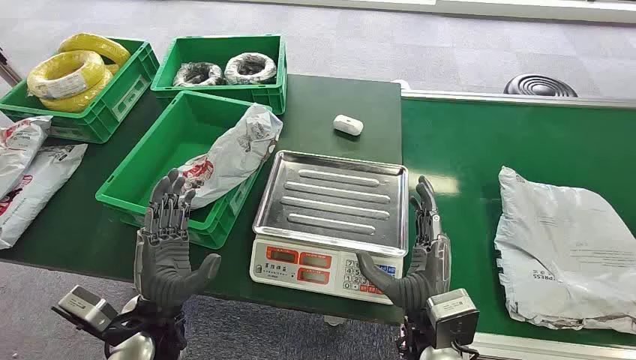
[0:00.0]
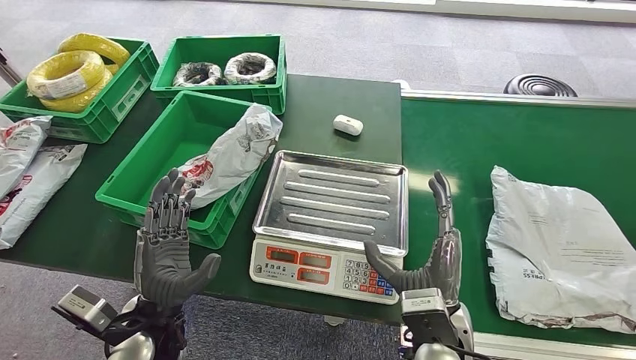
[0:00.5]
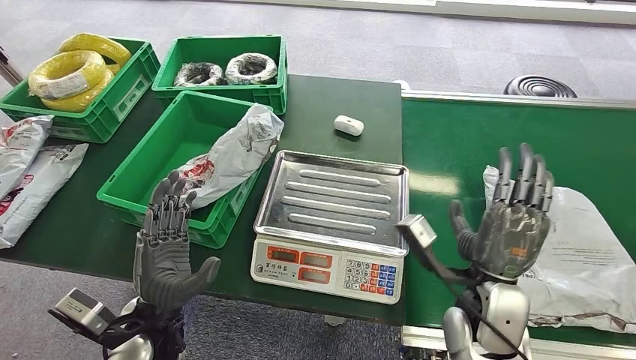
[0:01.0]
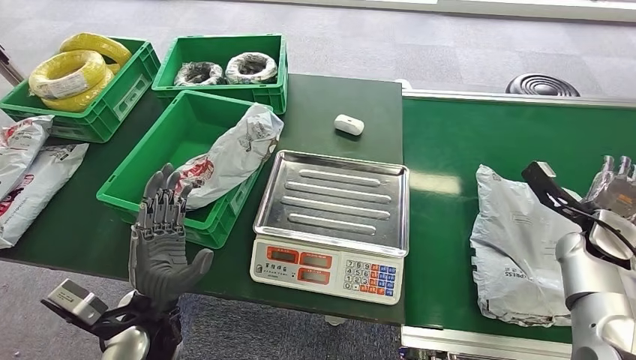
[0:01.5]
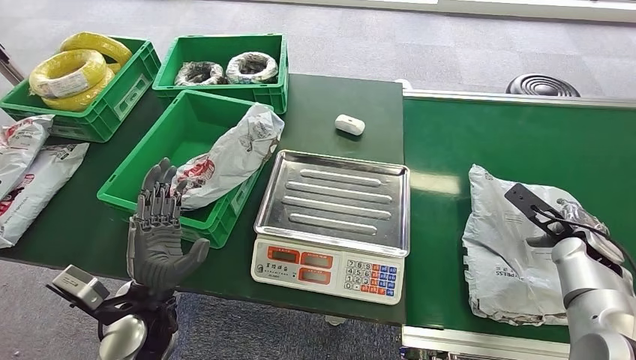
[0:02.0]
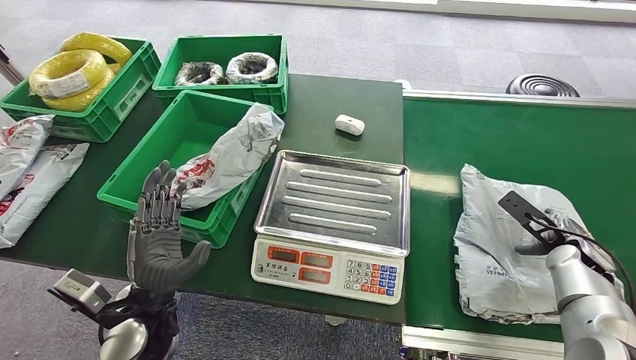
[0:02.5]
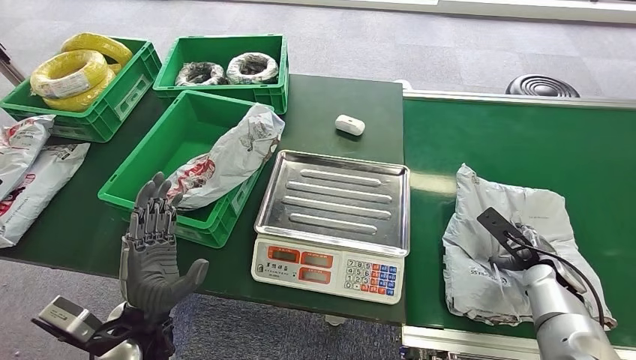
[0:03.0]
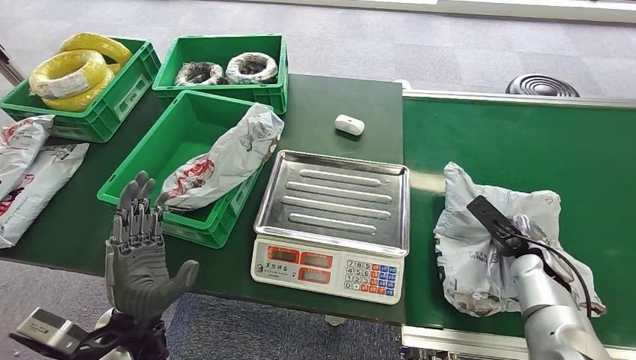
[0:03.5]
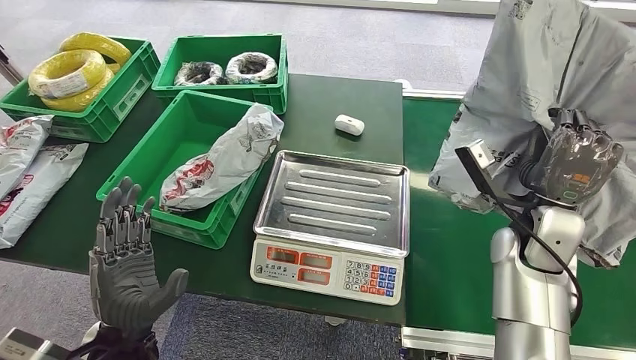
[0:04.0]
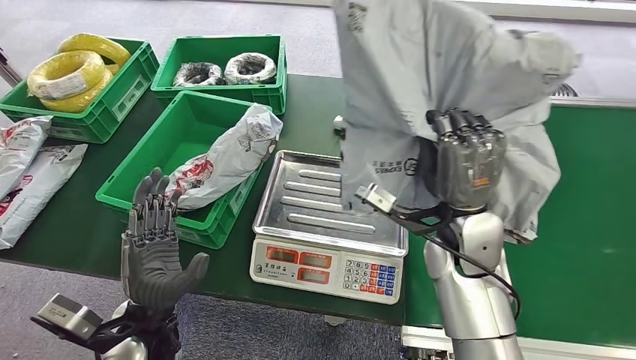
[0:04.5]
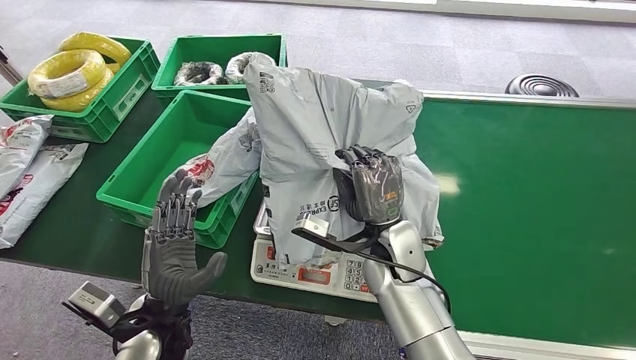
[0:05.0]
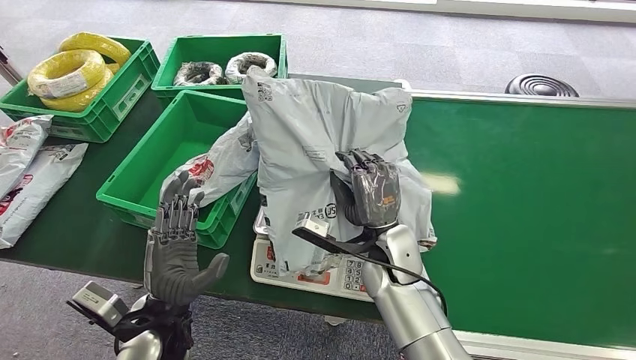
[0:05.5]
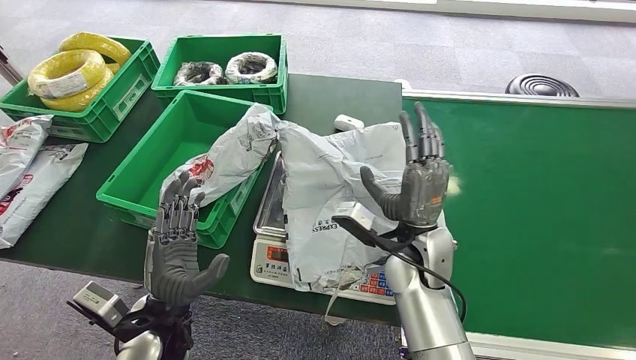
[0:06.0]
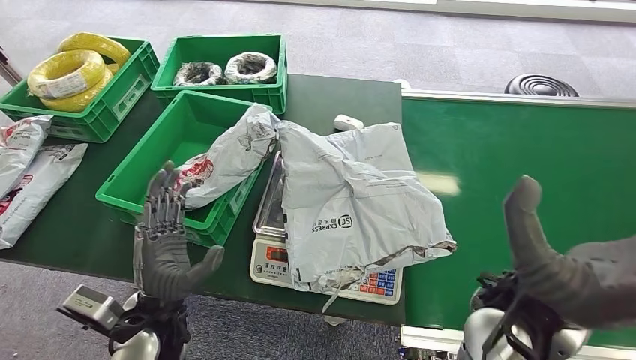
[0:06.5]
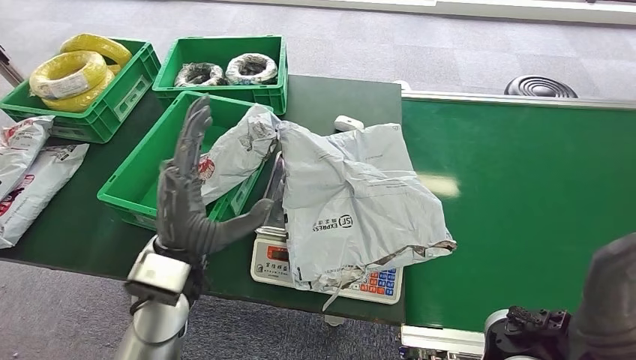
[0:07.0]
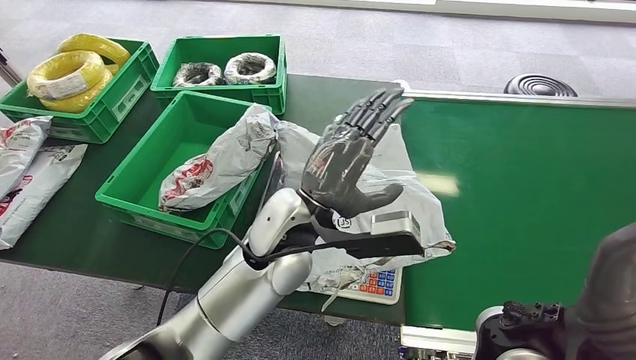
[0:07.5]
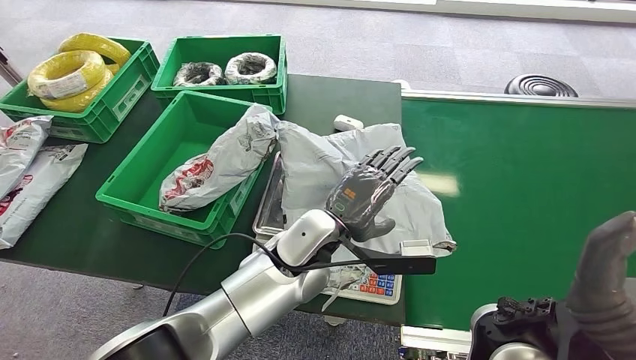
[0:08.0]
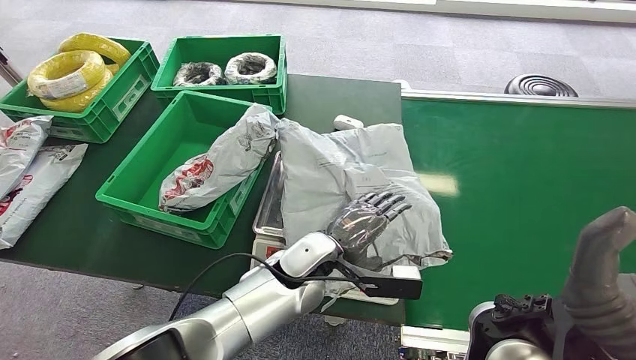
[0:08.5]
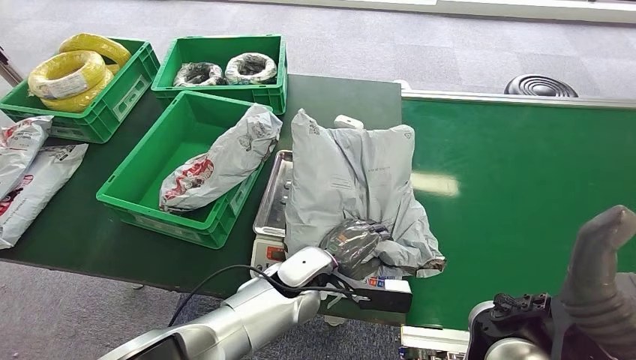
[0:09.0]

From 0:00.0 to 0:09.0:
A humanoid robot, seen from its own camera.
Step, from 0:00.0 to 0:04.0: Pick up the package from the conveyor belt.
Step, from 0:04.5 to 0:06.5: Place the package onto the inbound machine.
From 0:07.0 to 0:09.0: The left hand travels to the right and downward by about 20 cm.

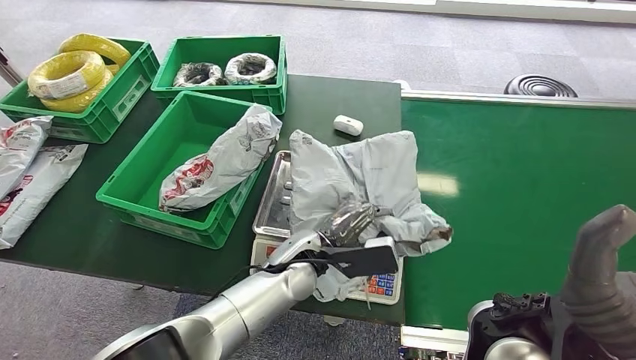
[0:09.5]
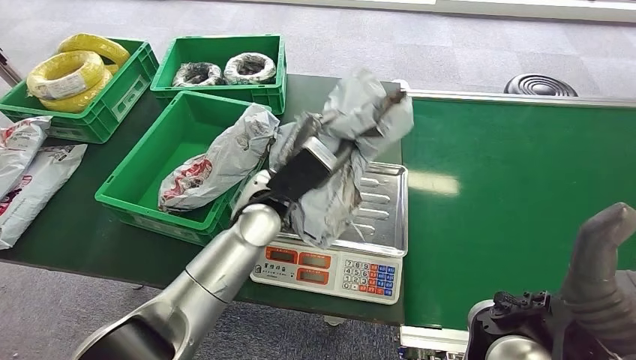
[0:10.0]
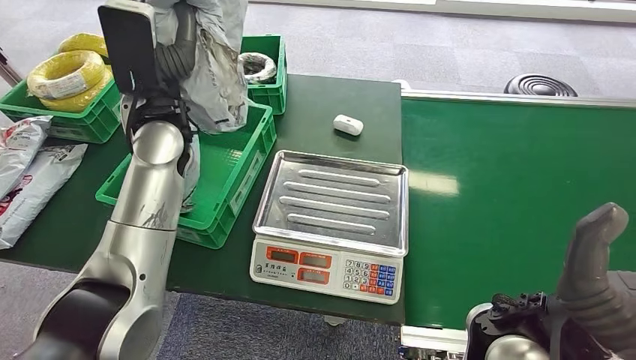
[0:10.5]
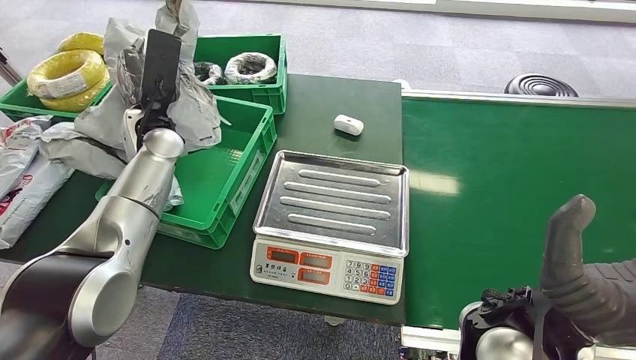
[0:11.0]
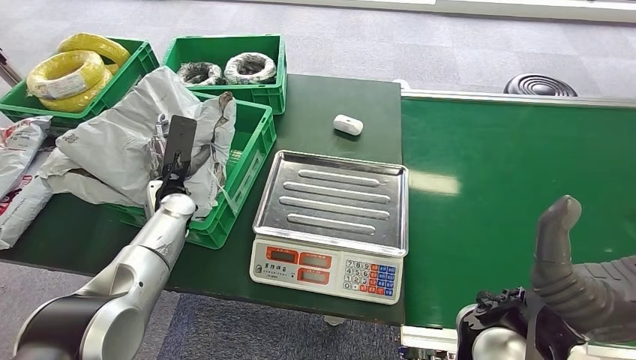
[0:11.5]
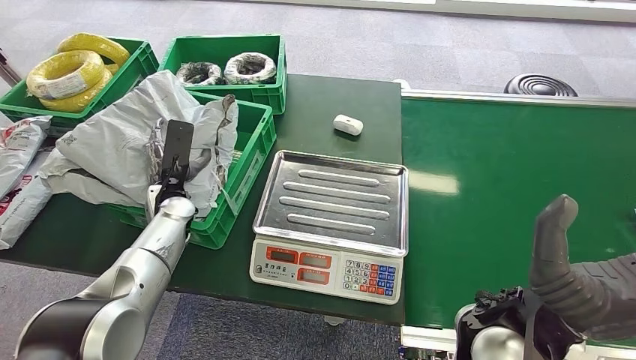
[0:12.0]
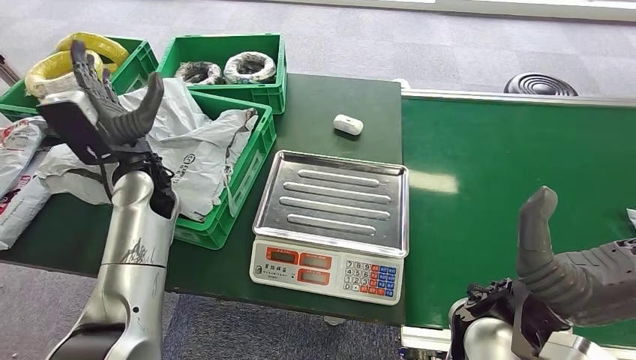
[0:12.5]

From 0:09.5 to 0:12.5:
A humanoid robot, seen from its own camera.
Step, from 0:10.5 to 0:12.5: Place the package into the parcel locker.

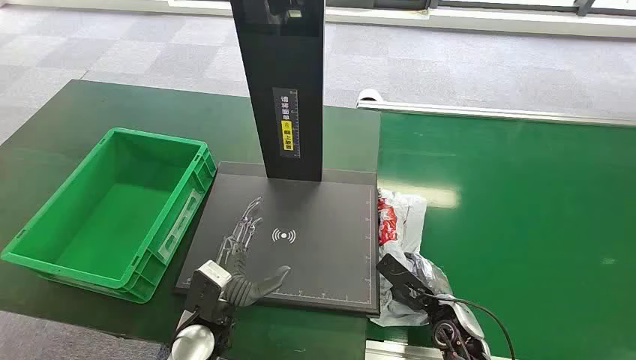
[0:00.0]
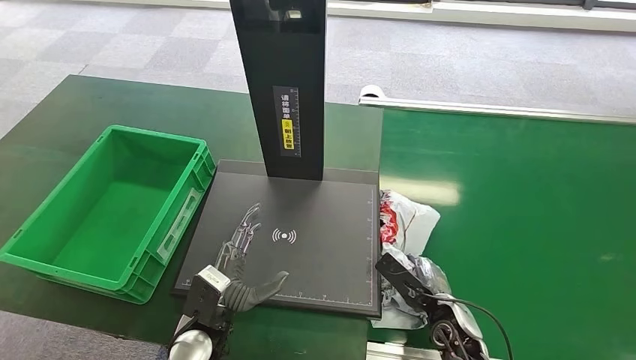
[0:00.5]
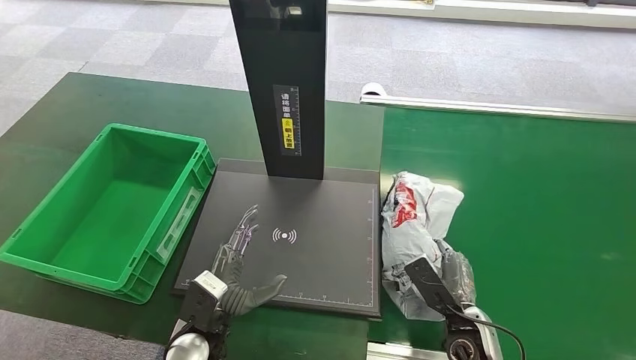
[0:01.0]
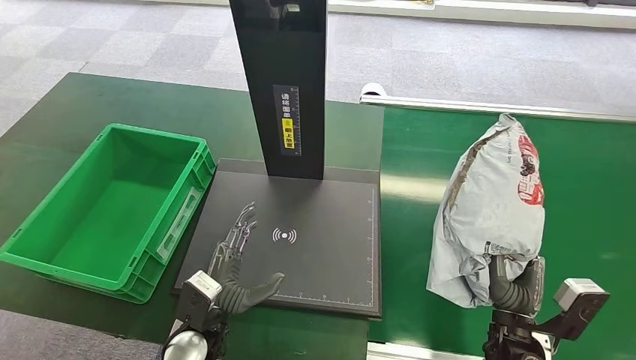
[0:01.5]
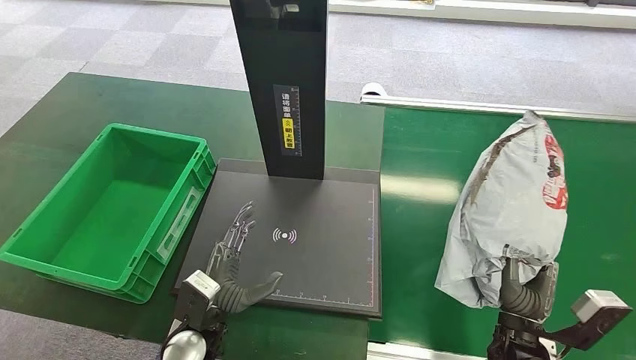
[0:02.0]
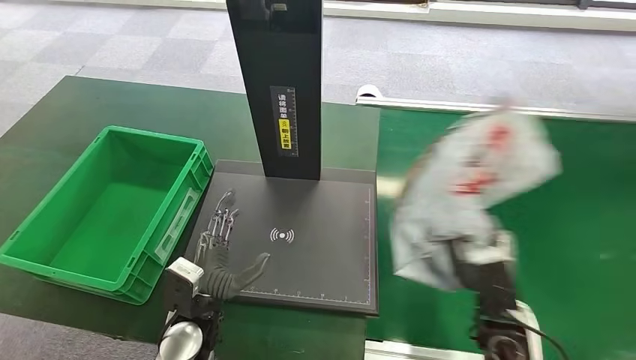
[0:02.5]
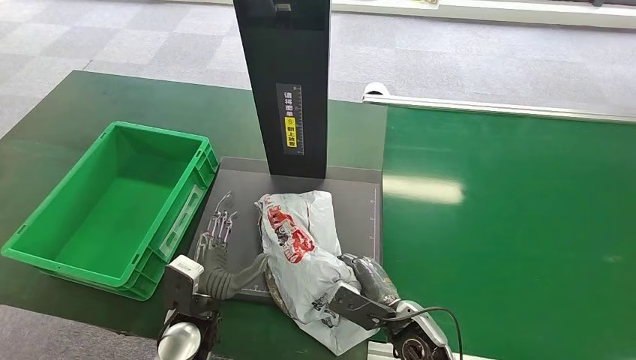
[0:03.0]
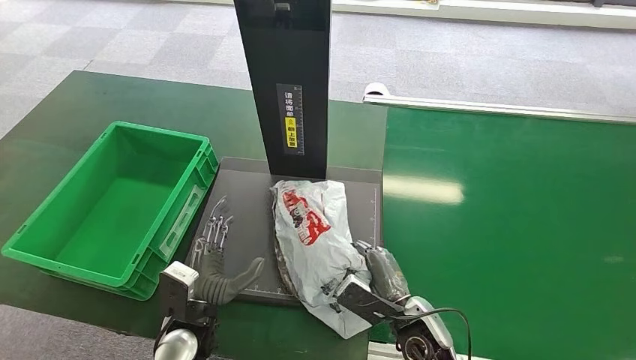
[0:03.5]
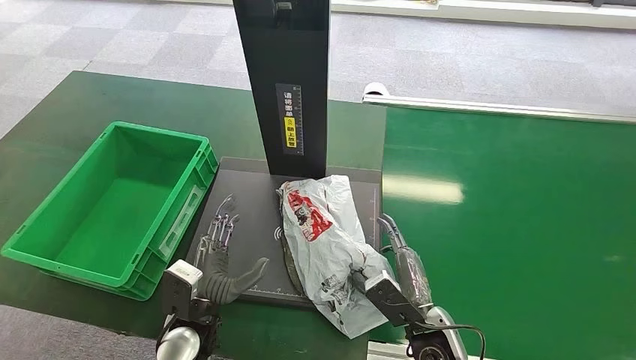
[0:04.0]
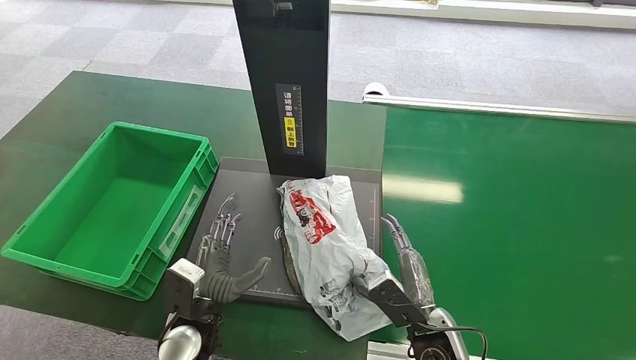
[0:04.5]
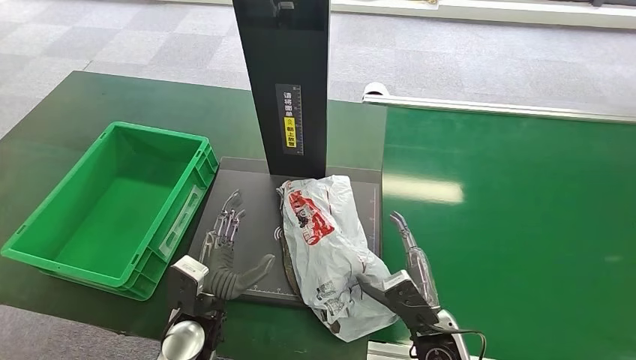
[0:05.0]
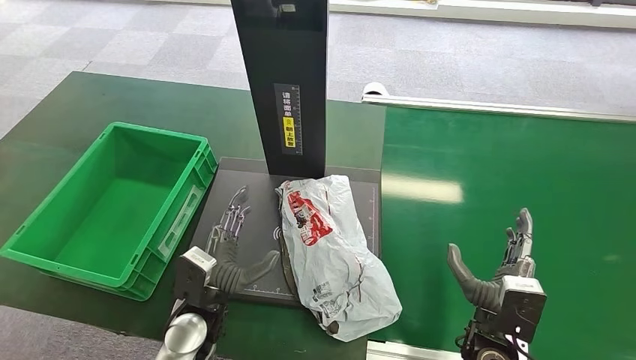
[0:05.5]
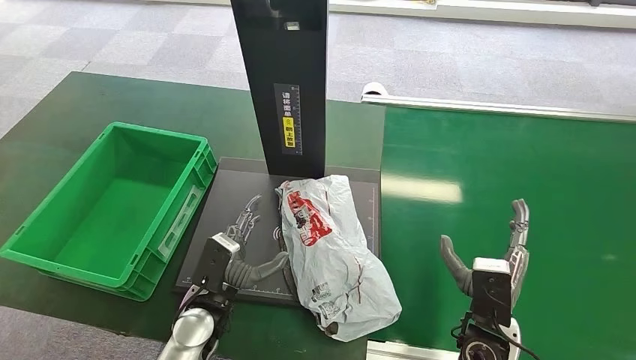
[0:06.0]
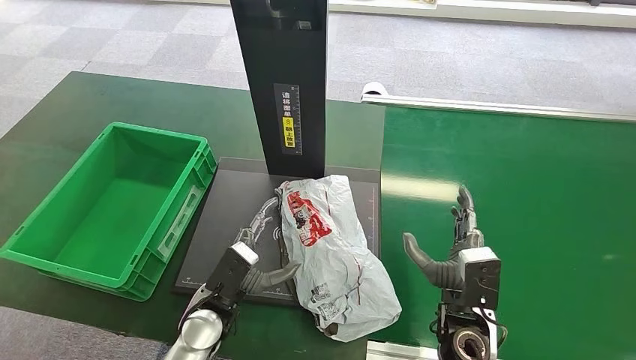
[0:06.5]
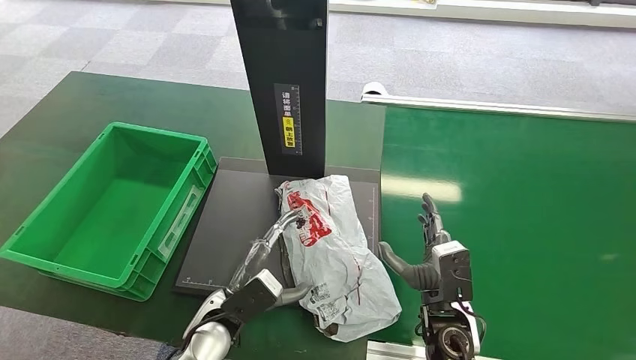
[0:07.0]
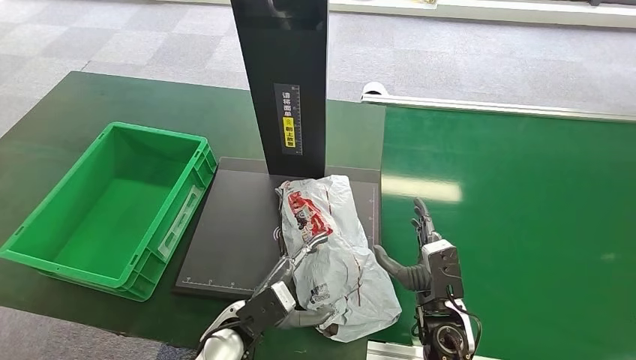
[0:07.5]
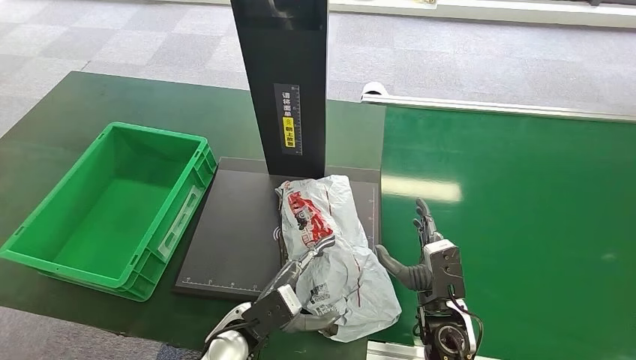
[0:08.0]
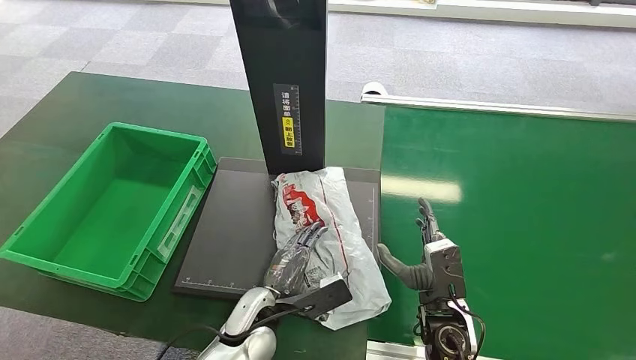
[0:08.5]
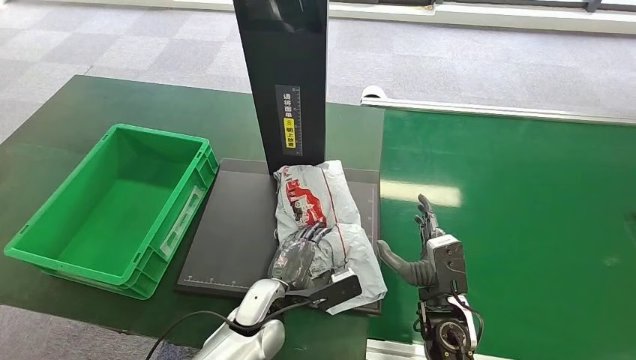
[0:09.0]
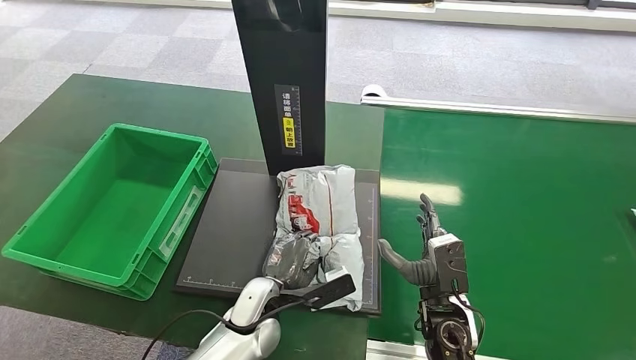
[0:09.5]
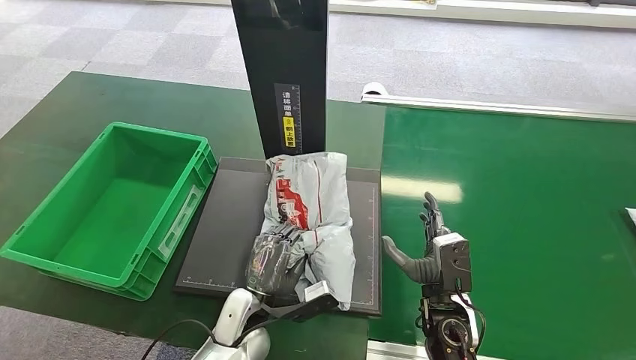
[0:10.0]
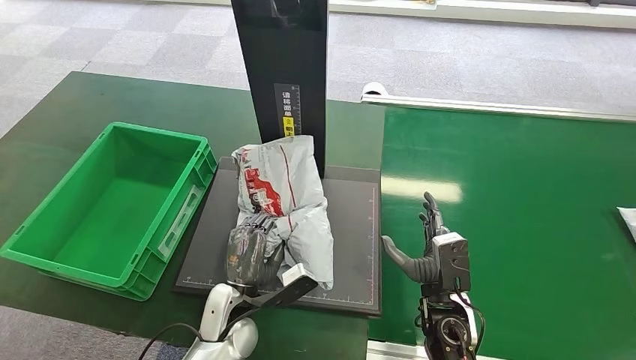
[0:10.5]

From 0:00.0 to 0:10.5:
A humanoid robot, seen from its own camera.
Step, from 0:00.0 to 0:01.5: Pick up the package from the conveyor belt.
Step, from 0:02.0 to 0:05.0: Place the package onto the inbound machine.
From 0:04.0 to 0:06.5: The right hand shifts by roughly 5 cm.
From 0:06.5 to 0:08.5: The left hand travels to the right by some 5 cm.
